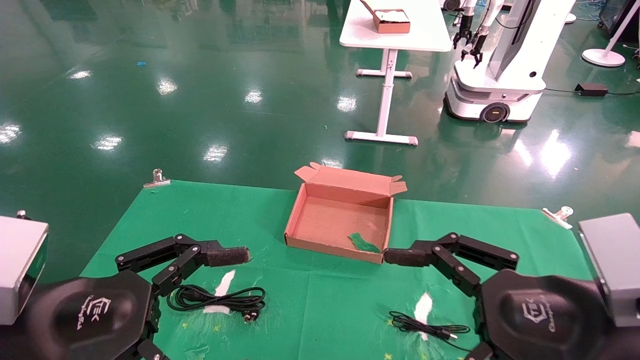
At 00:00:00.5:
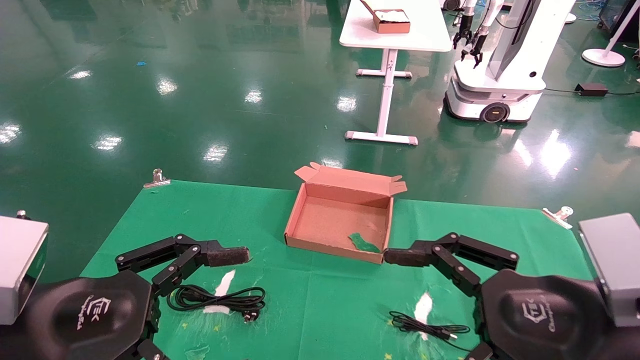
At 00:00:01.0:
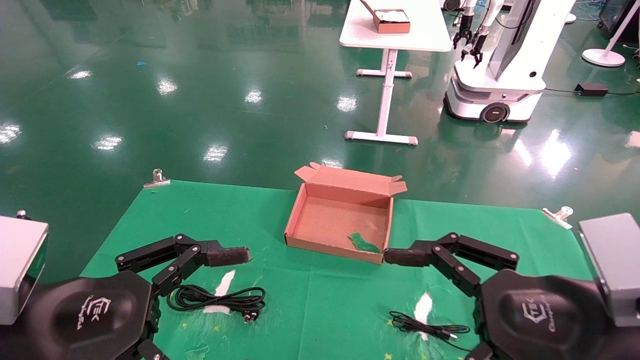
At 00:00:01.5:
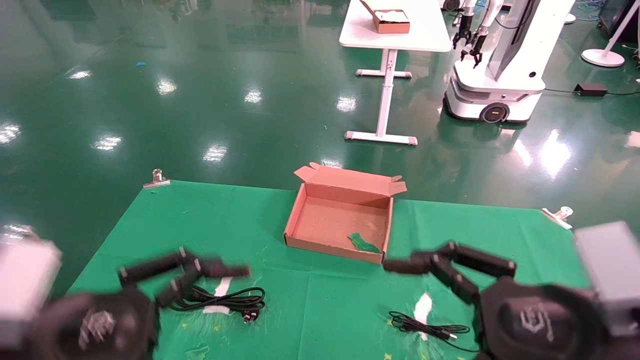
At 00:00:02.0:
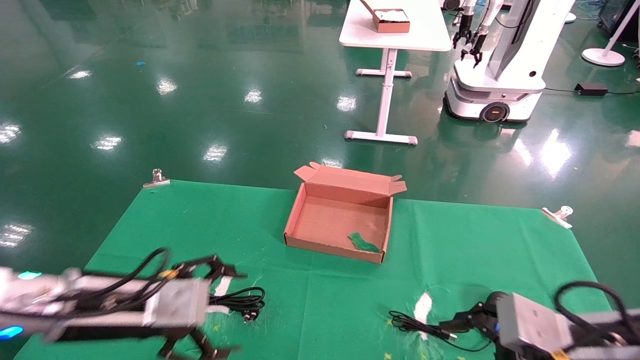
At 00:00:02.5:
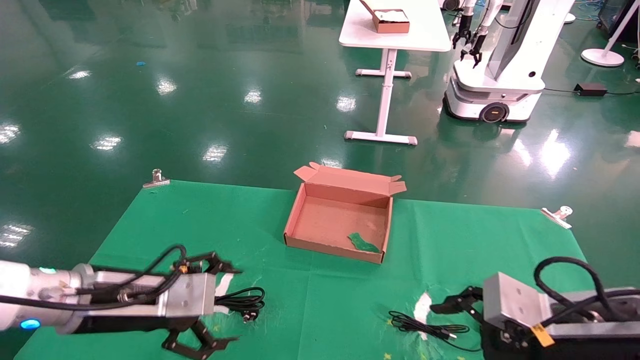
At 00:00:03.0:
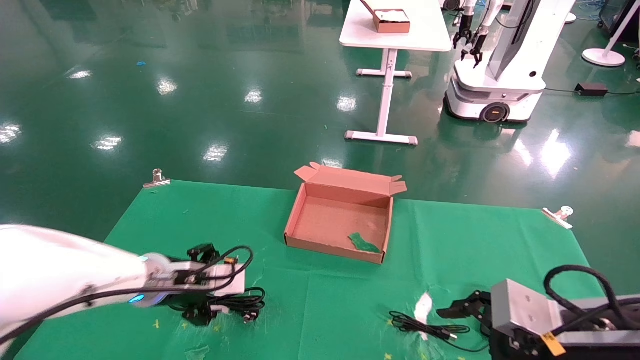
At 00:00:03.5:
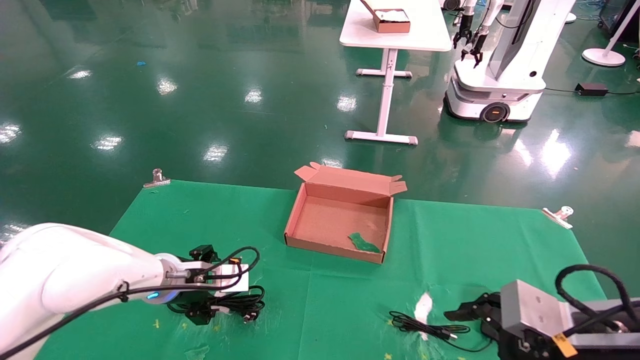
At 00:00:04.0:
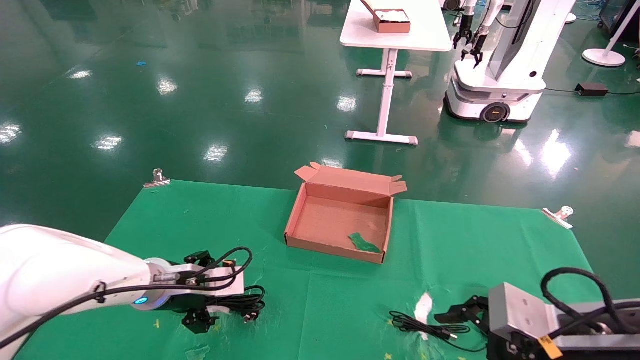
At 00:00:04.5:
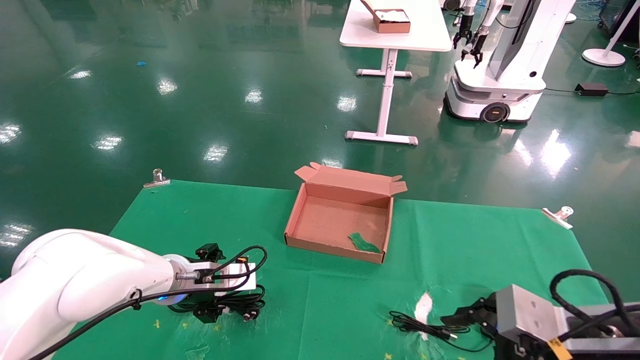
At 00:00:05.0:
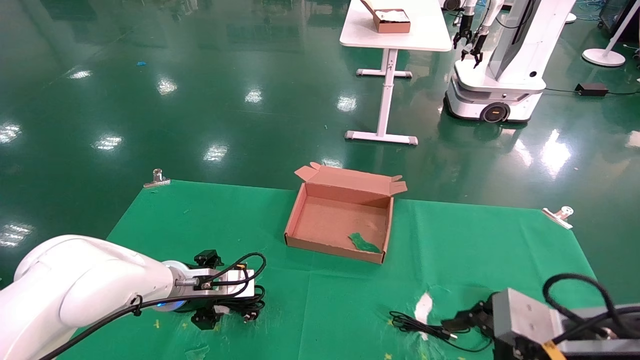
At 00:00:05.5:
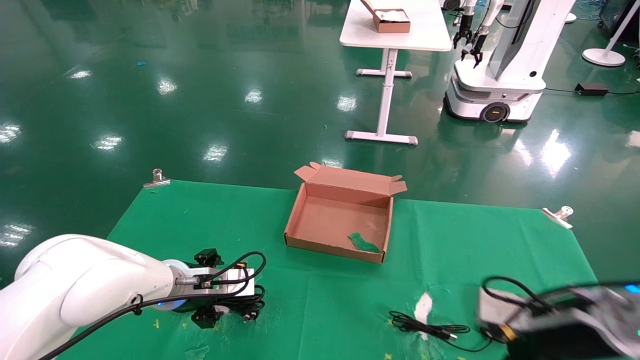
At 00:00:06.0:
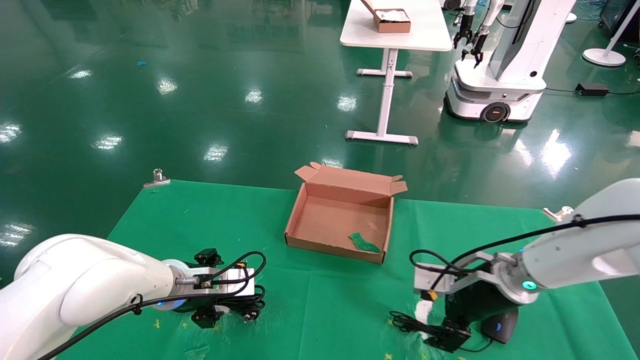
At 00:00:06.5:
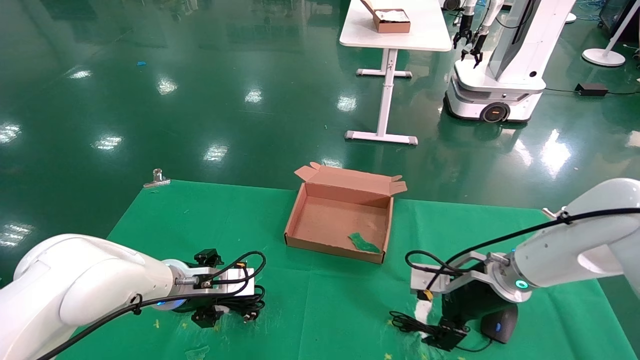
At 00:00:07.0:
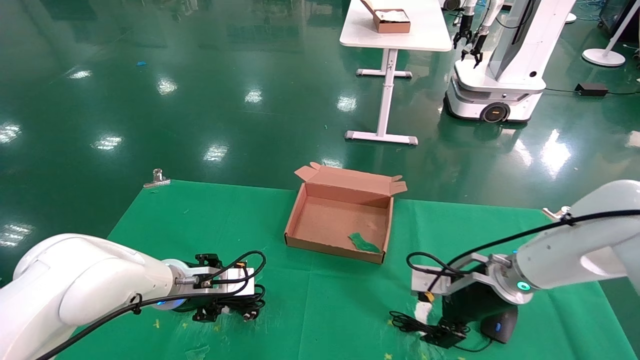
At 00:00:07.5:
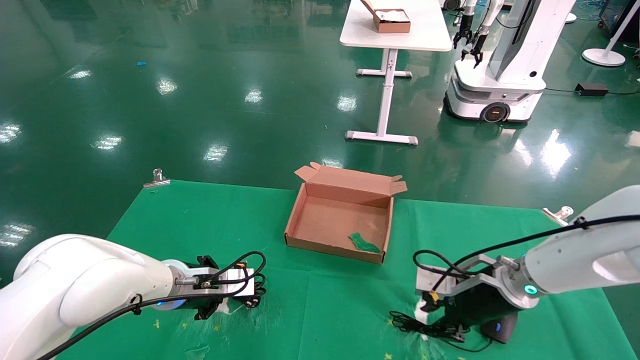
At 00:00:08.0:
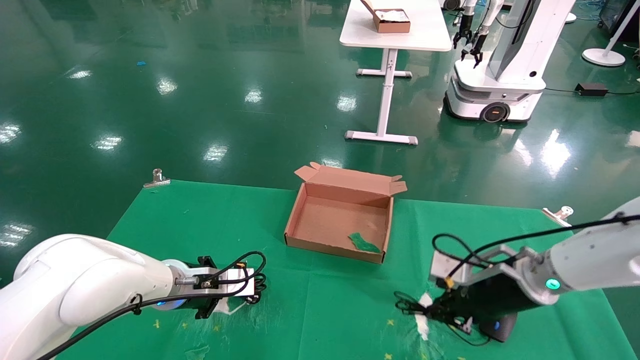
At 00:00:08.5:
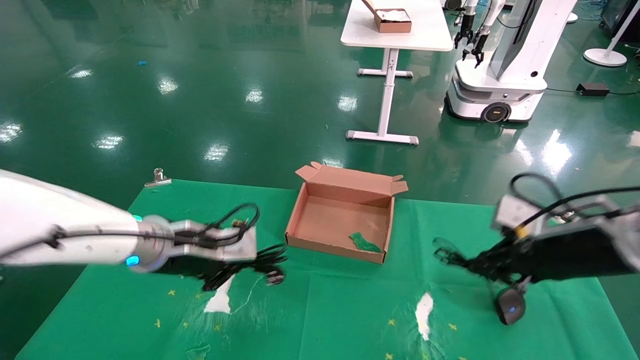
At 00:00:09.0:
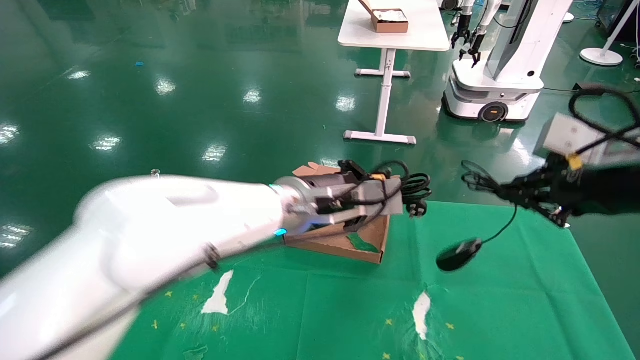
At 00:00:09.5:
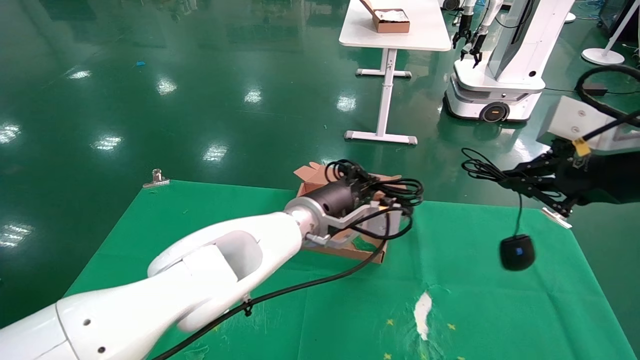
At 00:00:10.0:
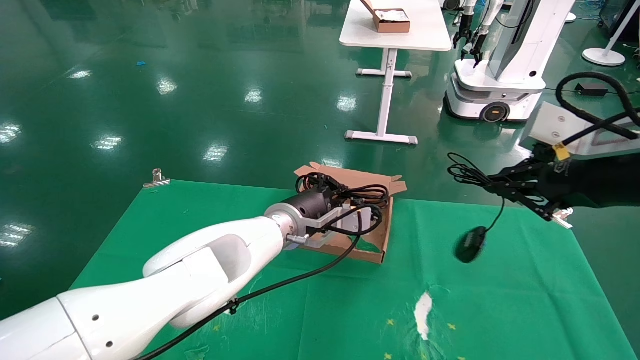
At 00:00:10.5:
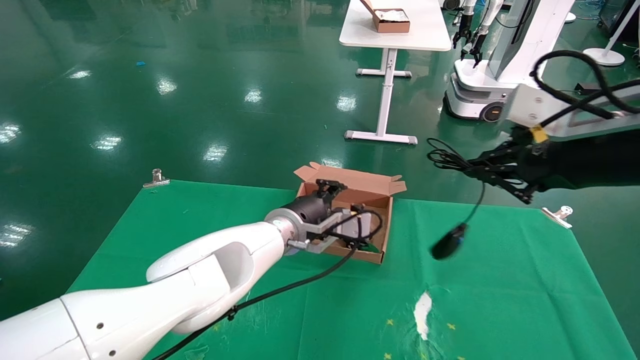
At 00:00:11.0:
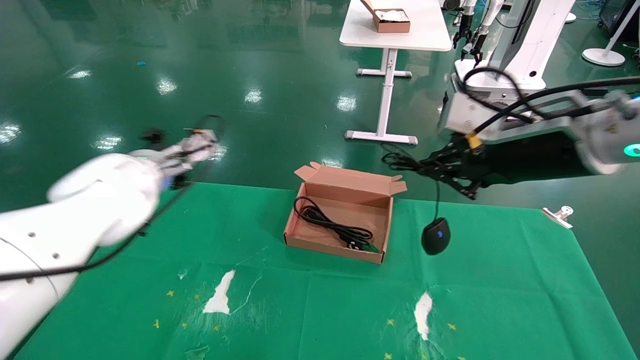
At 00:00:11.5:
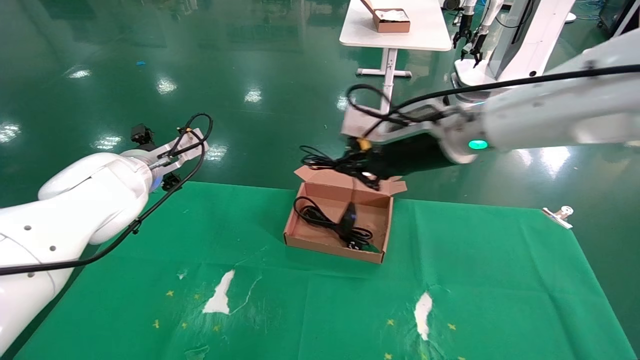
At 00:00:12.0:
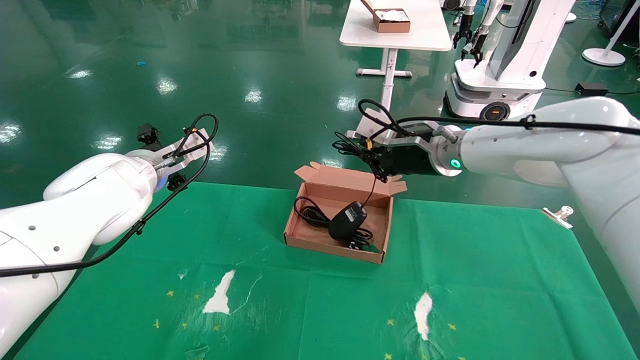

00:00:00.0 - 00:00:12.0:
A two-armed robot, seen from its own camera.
Step, 00:00:02.5 - 00:00:08.5: Grab and lift both the mouse and power cord from the accessory packaging area at the same time.
00:00:00.0 - 00:00:02.0: The right gripper heads downward, covering approximately 5 cm. The left gripper is displaced forward by approximately 10 cm.
00:00:02.0 - 00:00:04.0: The left gripper shifts roughly 15 cm forward.
00:00:04.0 - 00:00:06.0: The right gripper goes roughly 15 cm forward.
00:00:06.0 - 00:00:08.0: The left gripper closes its fingers; the right gripper closes its fingers.
00:00:08.0 - 00:00:10.0: The right gripper is displaced upward and backward by approximately 25 cm; the left gripper heads to the right and upward, covering some 20 cm.
00:00:10.0 - 00:00:12.0: The right gripper moves forward and to the left, approximately 25 cm; the left gripper heads to the left, covering about 25 cm, and opens its fingers.

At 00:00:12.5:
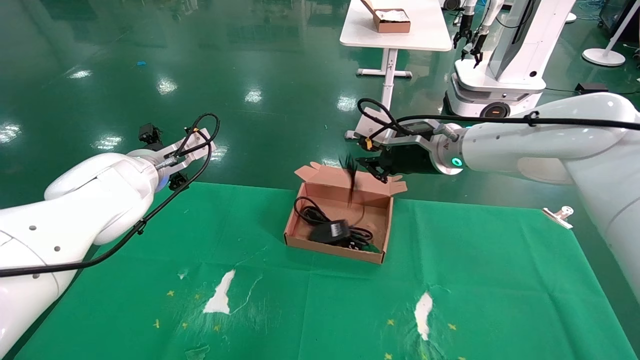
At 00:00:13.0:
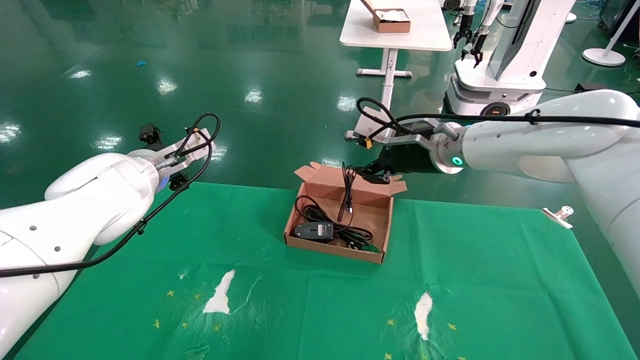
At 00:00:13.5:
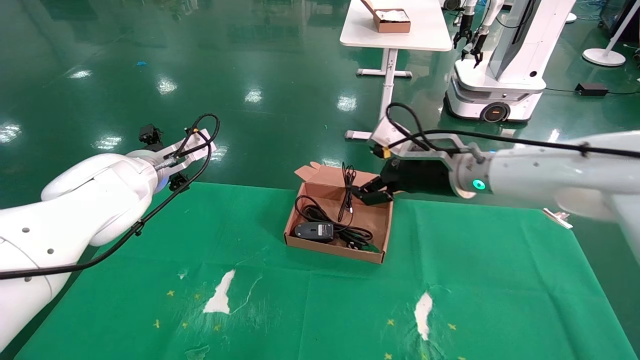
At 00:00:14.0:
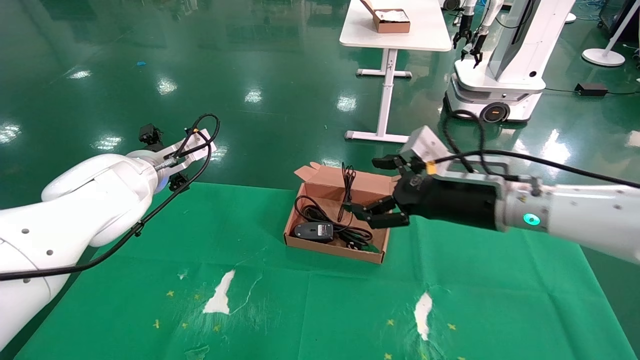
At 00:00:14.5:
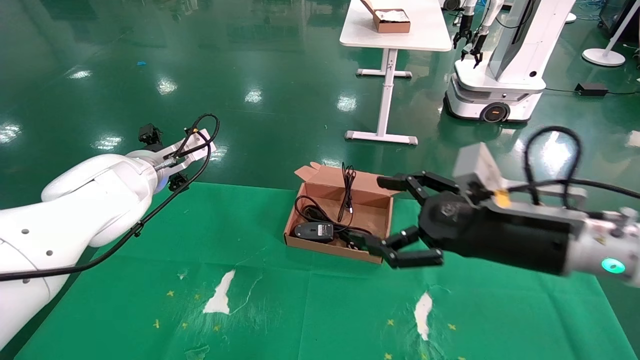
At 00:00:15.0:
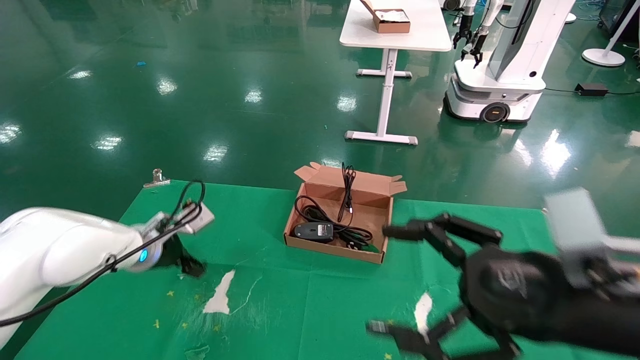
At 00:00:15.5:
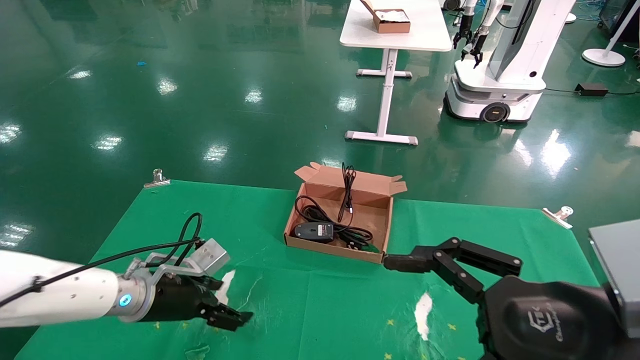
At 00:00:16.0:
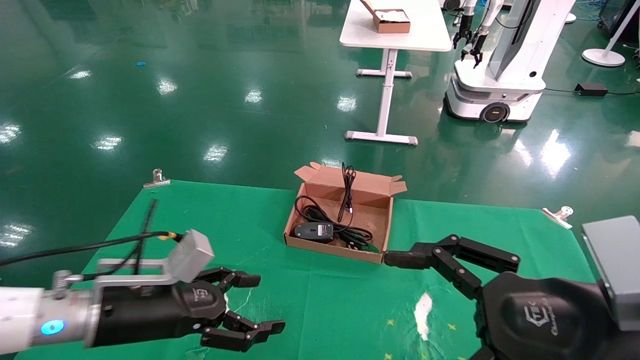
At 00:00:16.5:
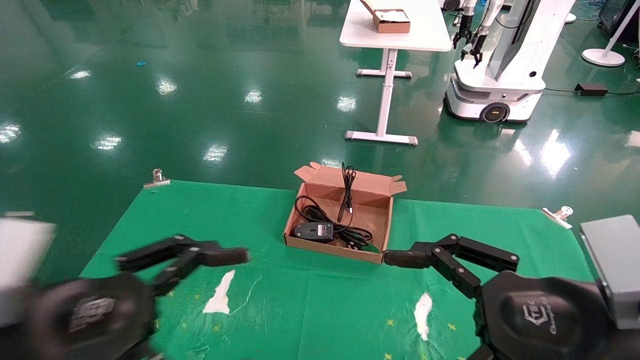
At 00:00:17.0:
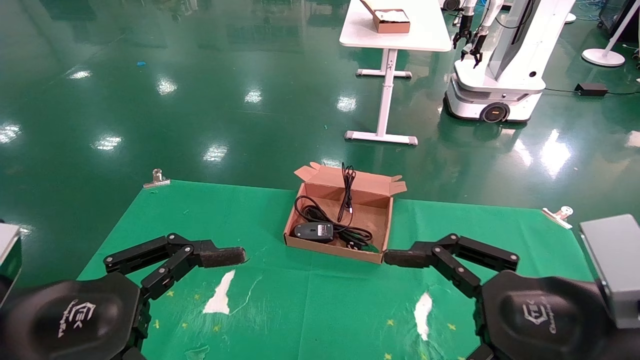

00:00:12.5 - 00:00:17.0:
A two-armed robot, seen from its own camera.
00:00:12.5 - 00:00:14.5: The right gripper moves backward, to the right and downward, about 20 cm, and opens its fingers.
00:00:14.5 - 00:00:17.0: The right gripper heads backward, covering roughly 10 cm. The left gripper travels backward by approximately 30 cm.
